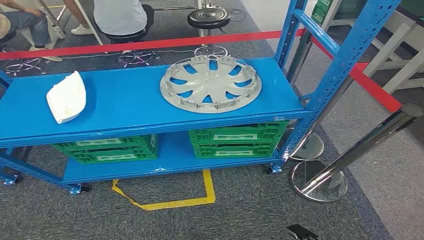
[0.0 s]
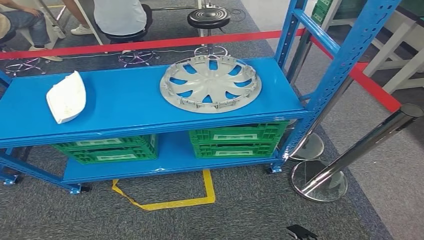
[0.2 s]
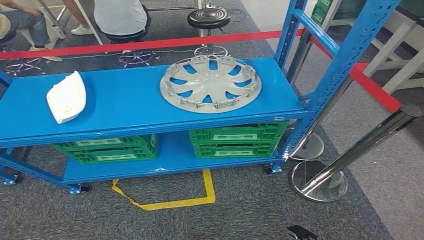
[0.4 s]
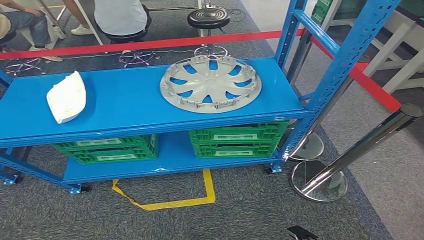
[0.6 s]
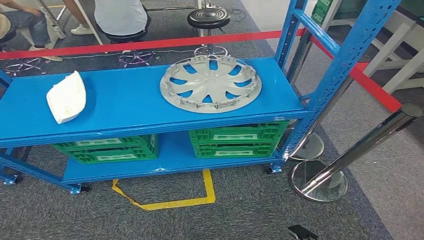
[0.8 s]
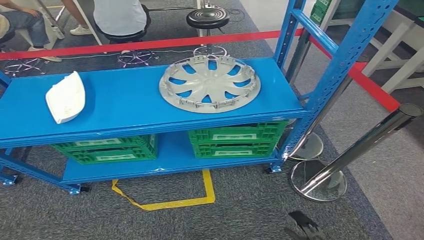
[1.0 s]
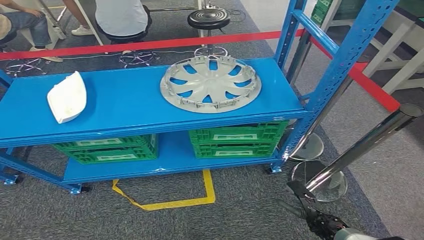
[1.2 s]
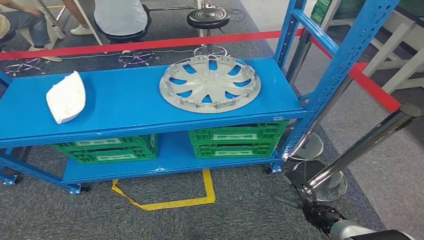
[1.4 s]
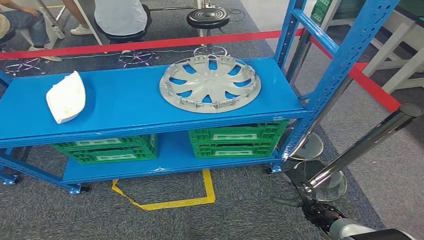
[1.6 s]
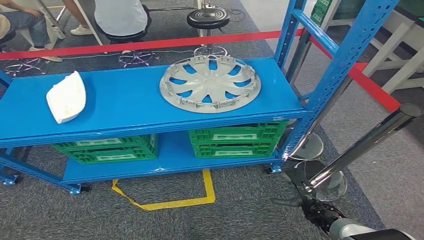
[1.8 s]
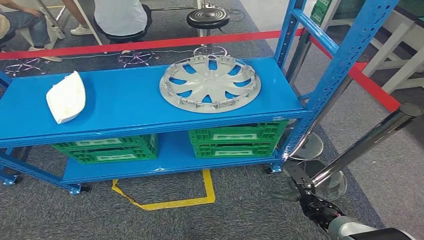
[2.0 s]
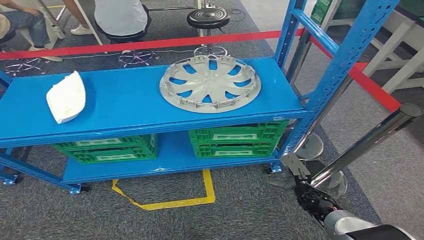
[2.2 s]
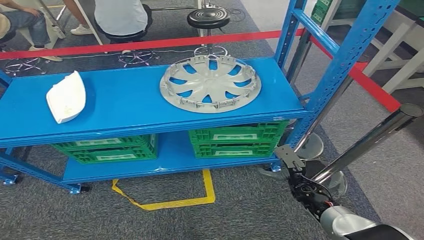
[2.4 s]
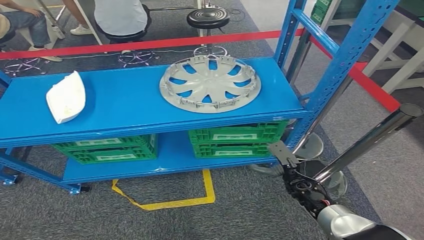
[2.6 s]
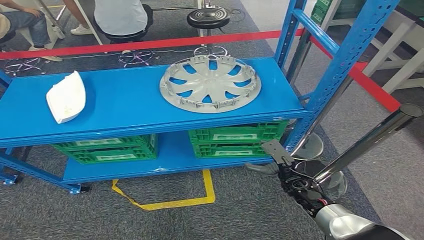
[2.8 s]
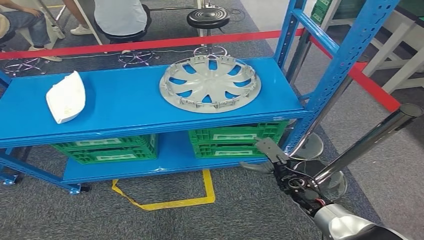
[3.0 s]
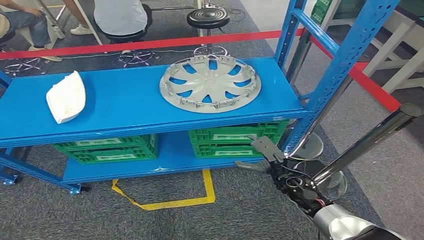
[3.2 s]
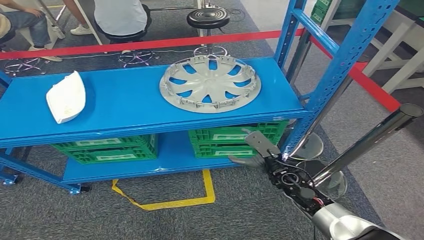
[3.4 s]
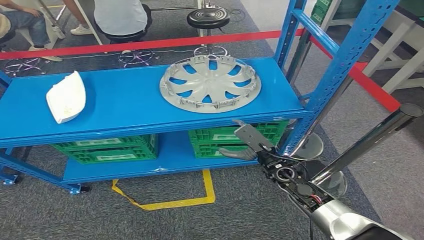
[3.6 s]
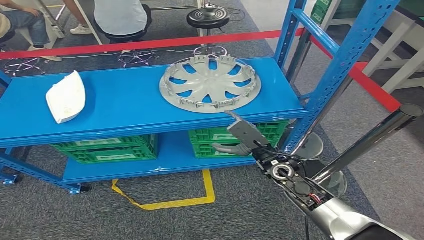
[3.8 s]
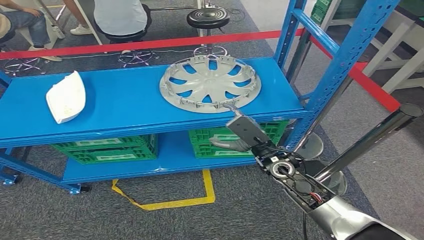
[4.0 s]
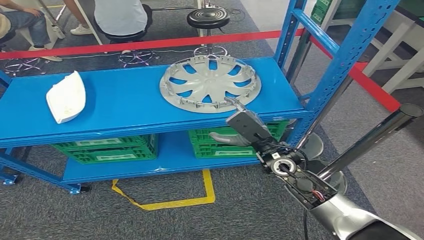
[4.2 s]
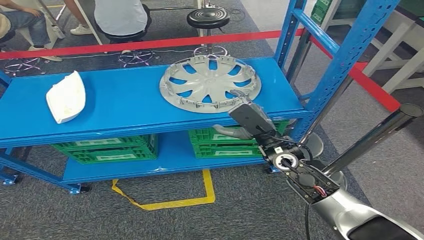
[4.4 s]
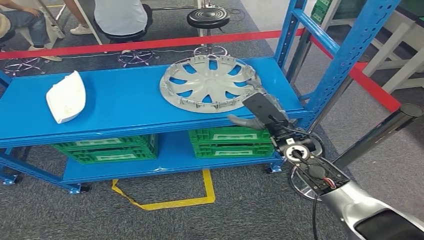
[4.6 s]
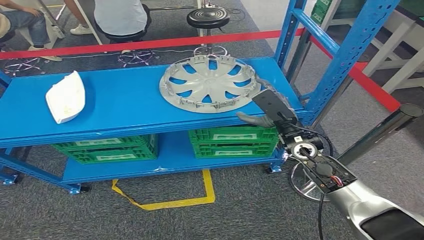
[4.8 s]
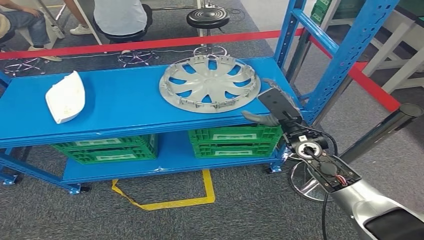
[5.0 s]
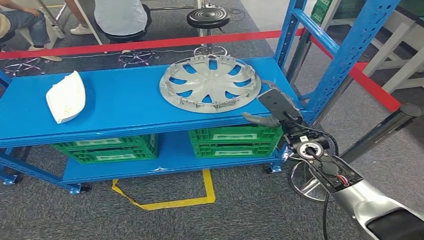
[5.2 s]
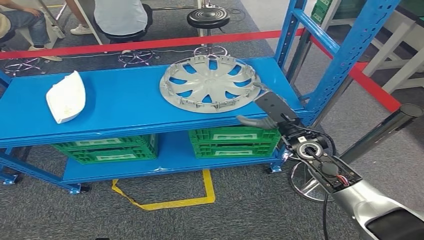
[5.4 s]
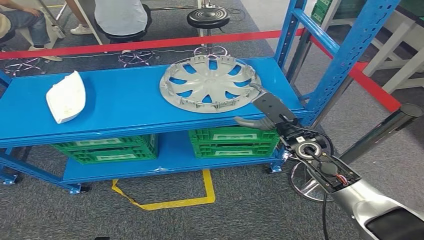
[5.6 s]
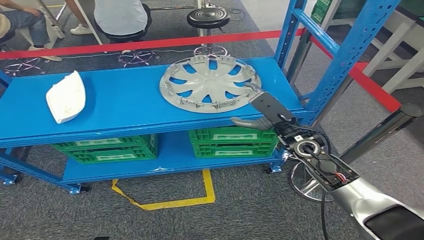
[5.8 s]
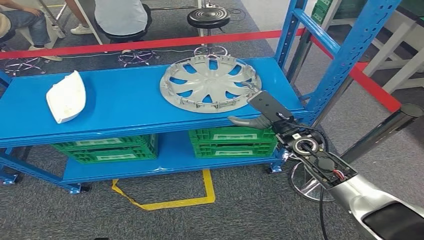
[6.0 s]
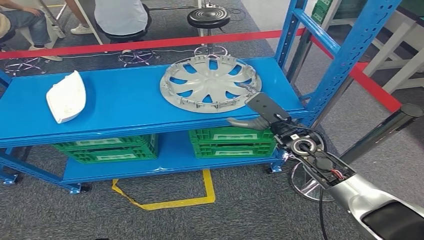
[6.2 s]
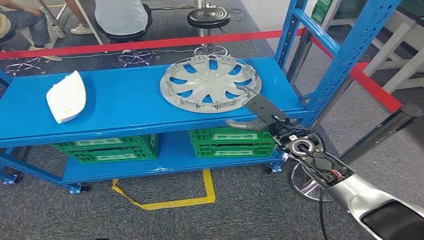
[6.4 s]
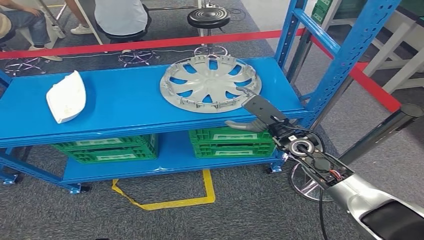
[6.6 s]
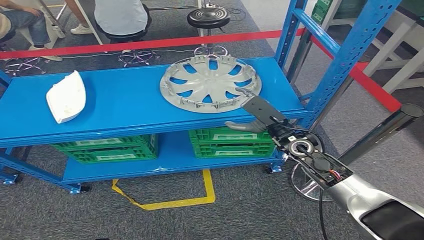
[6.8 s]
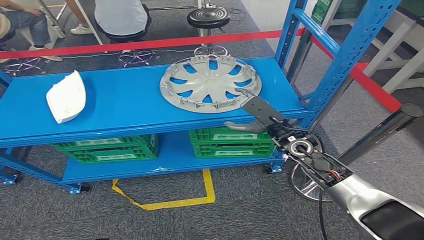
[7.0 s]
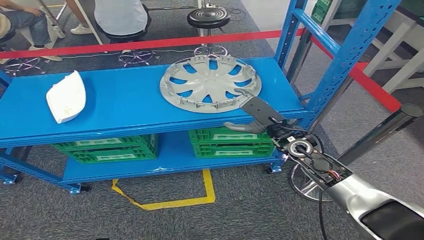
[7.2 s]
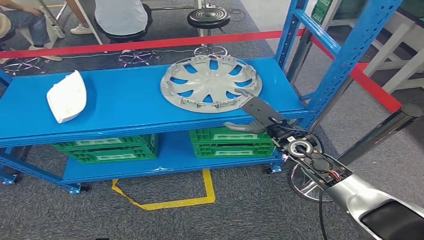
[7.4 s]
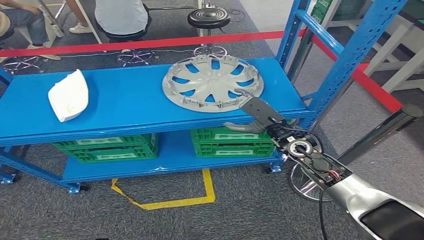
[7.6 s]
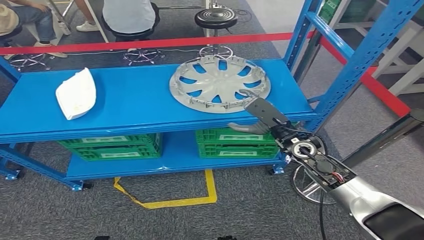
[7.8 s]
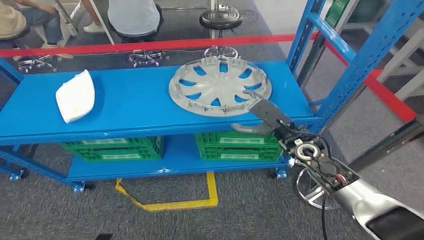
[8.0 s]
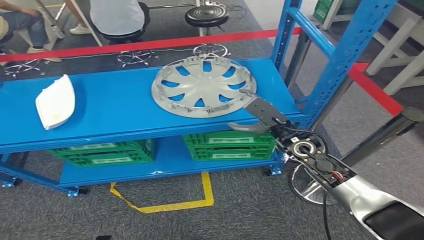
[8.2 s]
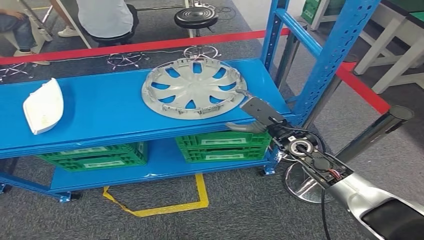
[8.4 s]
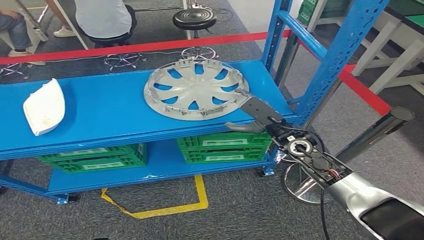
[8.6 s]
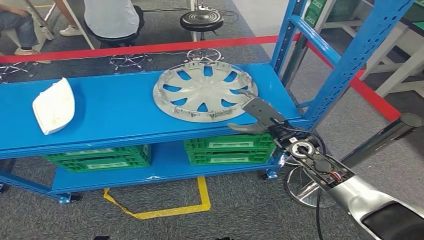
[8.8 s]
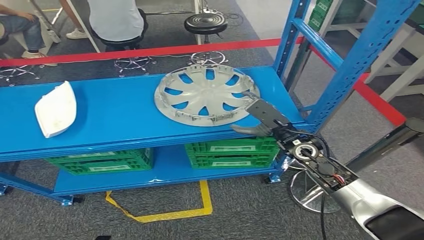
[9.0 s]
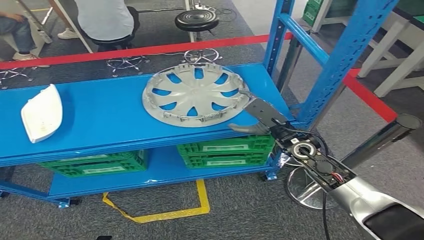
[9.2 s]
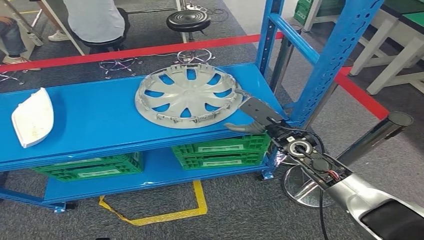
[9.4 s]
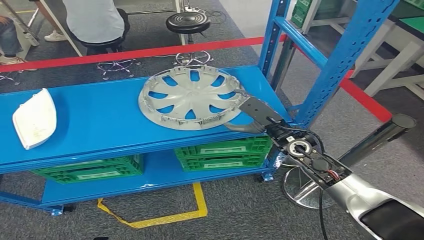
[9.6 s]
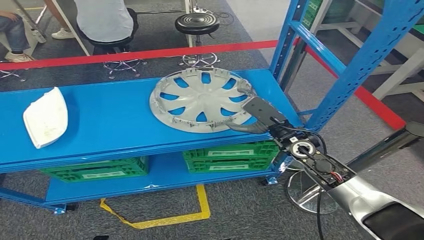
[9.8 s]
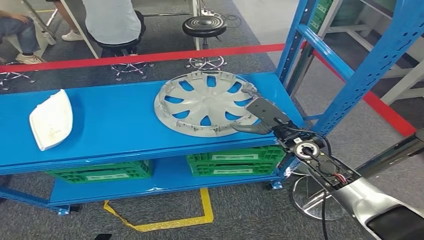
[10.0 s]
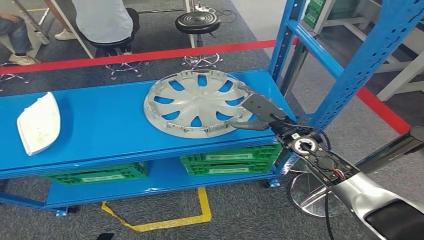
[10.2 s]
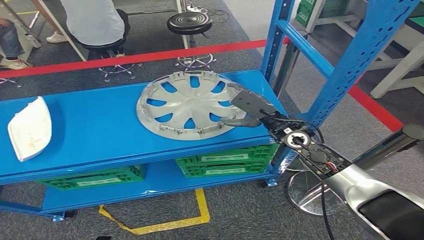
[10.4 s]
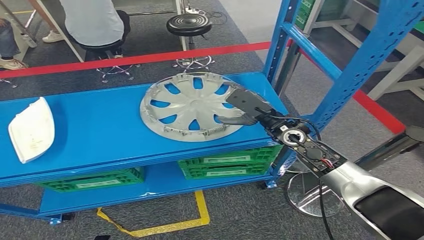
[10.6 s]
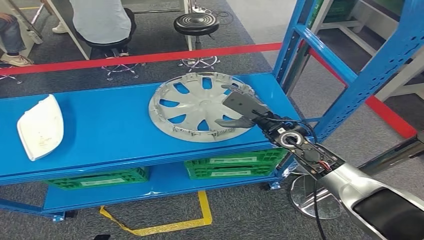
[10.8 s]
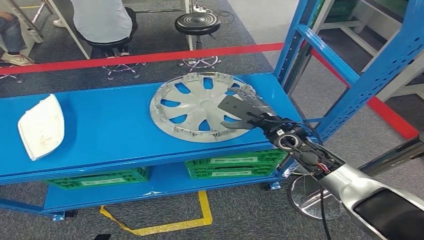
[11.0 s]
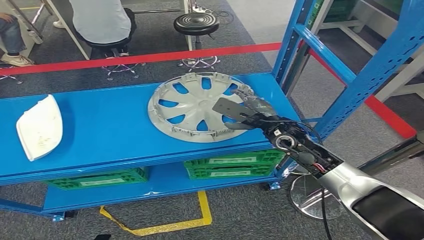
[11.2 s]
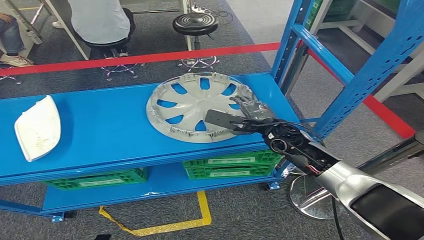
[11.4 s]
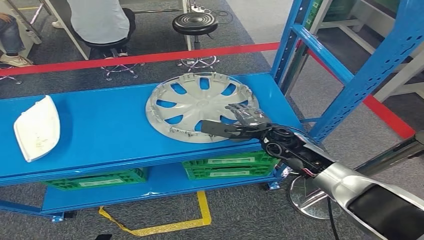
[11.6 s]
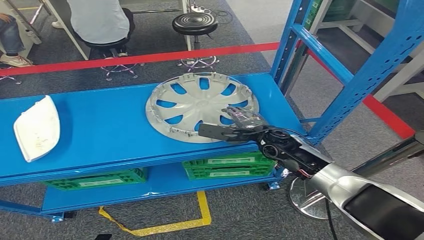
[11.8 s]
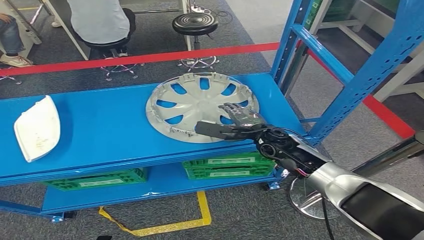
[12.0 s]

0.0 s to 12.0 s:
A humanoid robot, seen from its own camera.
1.6 to 3.0 s: The right hand moves forward, upward and to the left, approximately 15 cm.
3.0 to 4.4 s: The right hand is displaced upward by some 15 cm.
4.4 to 6.0 s: The right hand moves about 5 cm.
6.0 to 7.6 s: The hands move only a little.

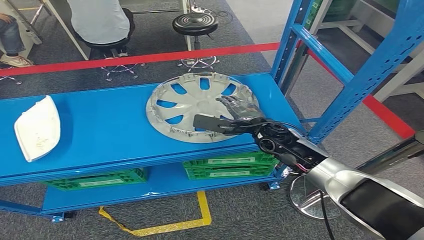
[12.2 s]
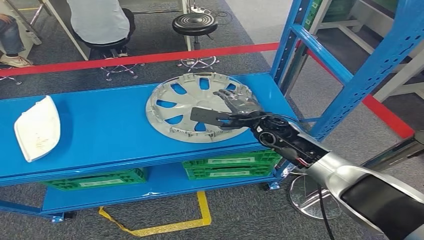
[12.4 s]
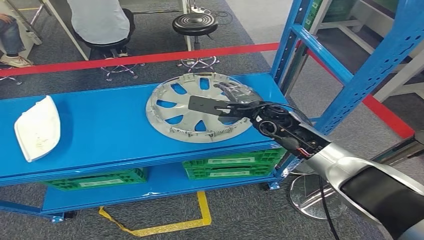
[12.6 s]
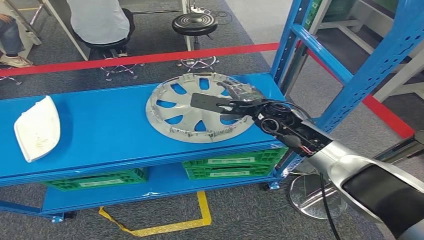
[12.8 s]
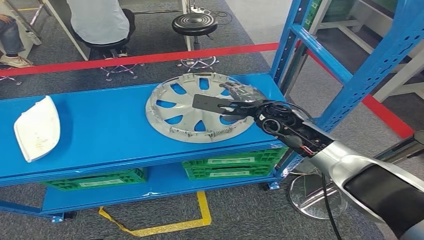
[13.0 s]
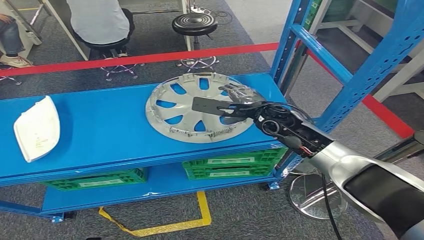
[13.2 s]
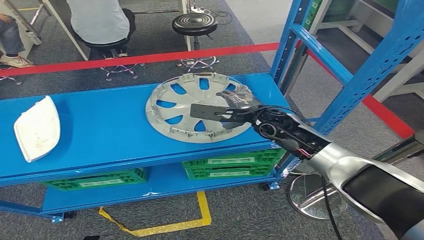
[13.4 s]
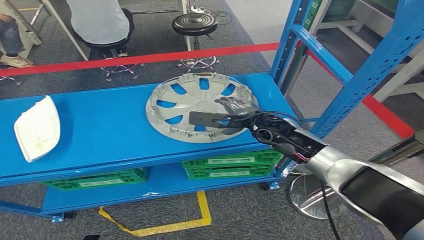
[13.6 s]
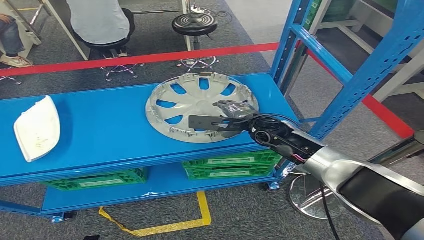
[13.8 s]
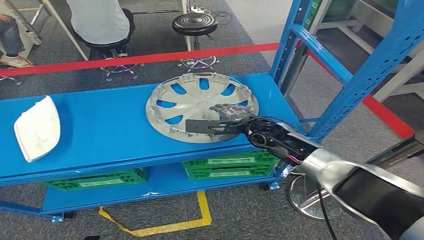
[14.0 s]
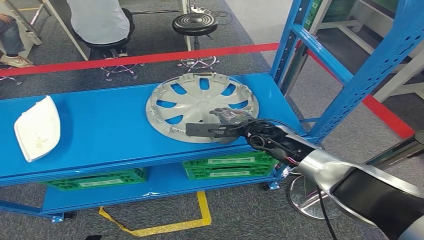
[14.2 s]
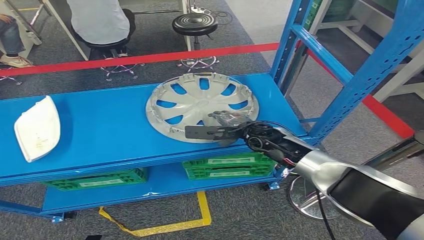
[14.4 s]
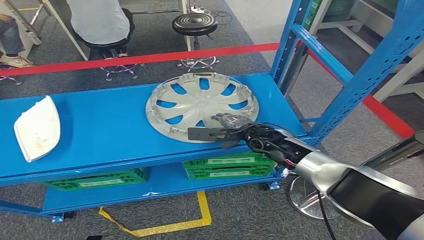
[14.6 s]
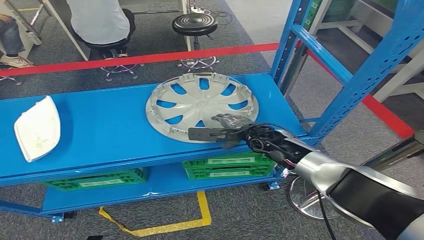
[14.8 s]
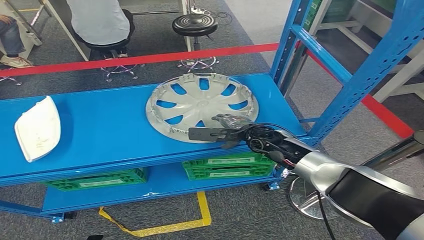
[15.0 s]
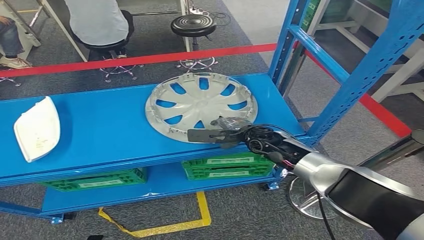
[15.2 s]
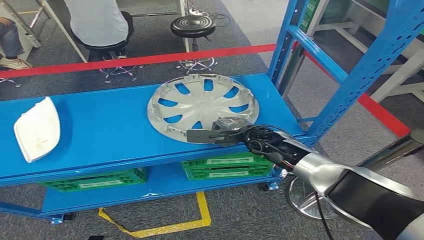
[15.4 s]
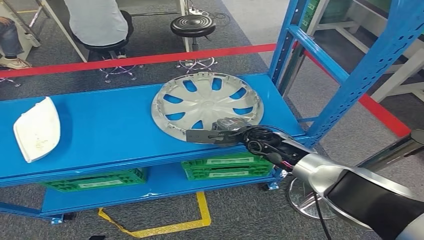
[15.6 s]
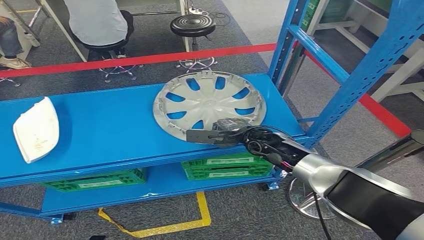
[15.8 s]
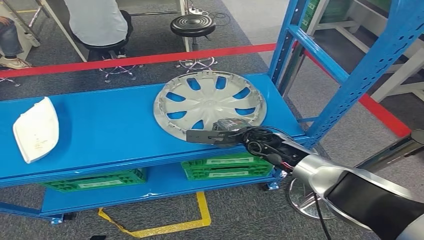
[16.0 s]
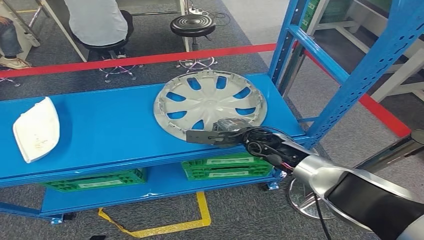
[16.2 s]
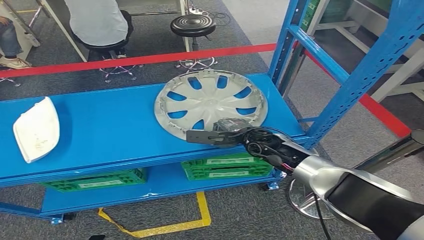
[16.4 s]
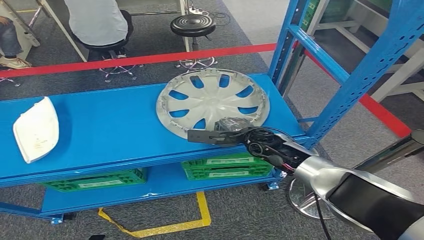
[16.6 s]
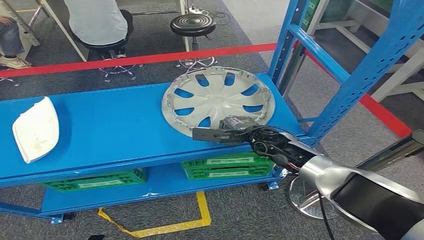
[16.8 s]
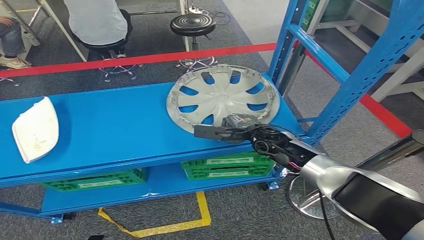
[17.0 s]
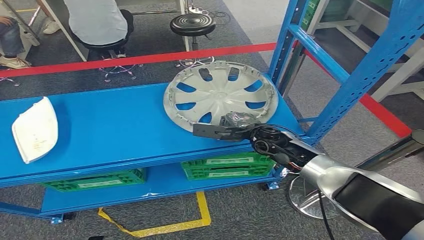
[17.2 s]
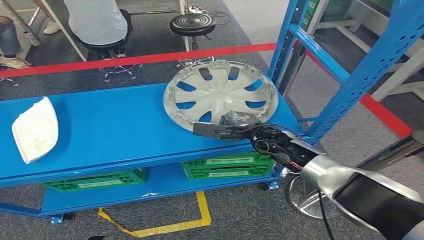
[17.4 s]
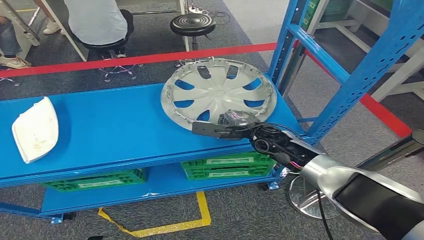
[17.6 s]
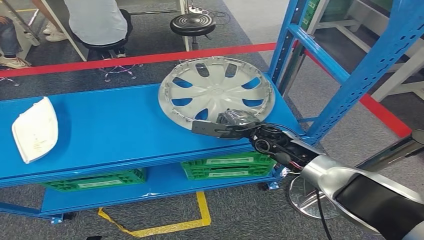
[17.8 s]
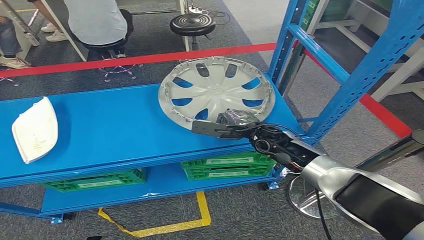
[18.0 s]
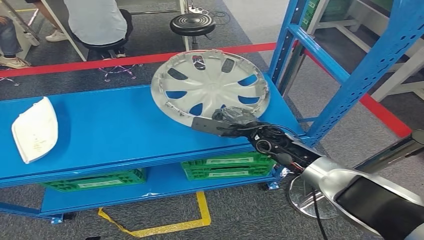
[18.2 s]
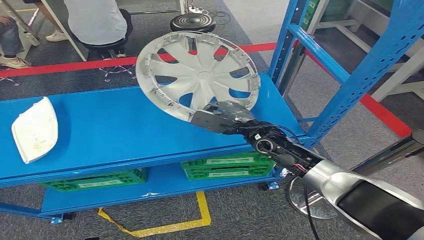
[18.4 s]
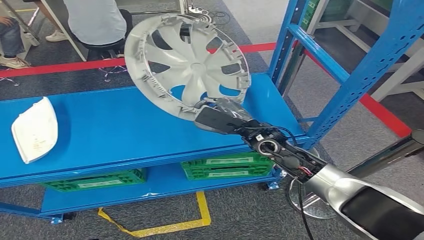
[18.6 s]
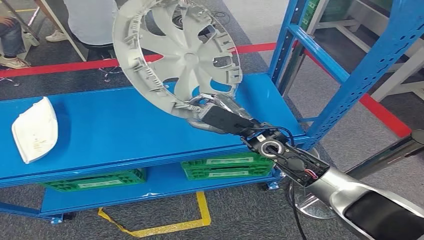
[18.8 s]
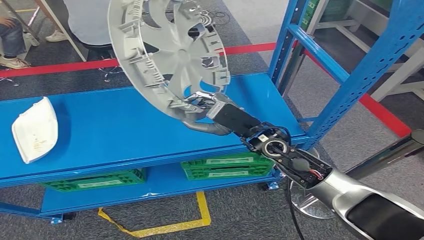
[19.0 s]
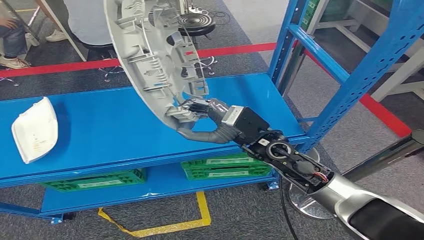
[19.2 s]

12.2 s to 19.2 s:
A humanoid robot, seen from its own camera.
13.6 to 15.0 s: The right hand goes some 5 cm downward.
15.0 to 16.4 s: Both hands stay put.
16.4 to 17.8 s: There are only small adjustments of the hands.
17.8 to 19.2 s: The right hand goes some 10 cm upward and backward.
